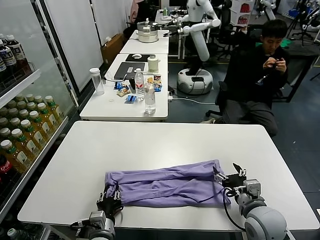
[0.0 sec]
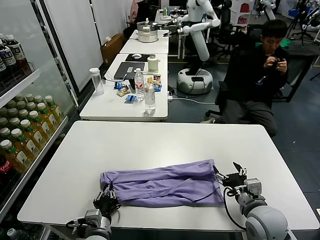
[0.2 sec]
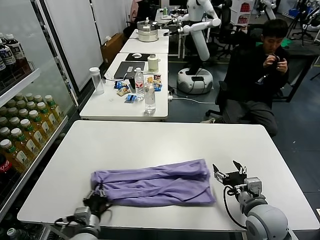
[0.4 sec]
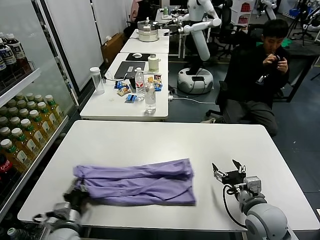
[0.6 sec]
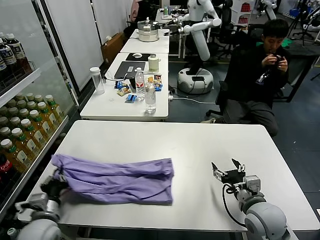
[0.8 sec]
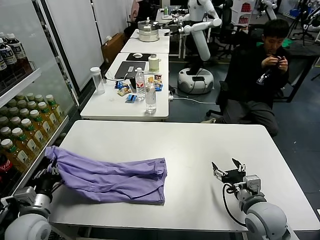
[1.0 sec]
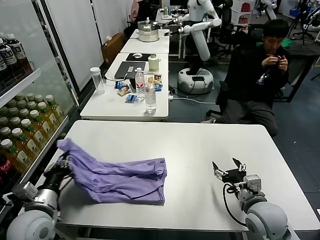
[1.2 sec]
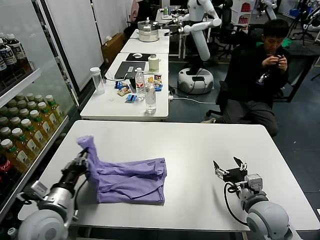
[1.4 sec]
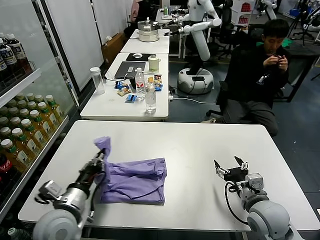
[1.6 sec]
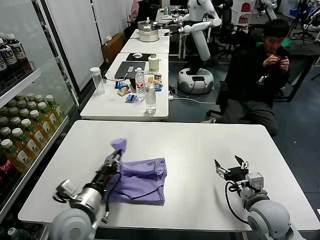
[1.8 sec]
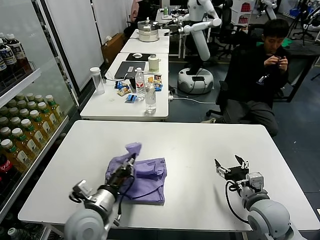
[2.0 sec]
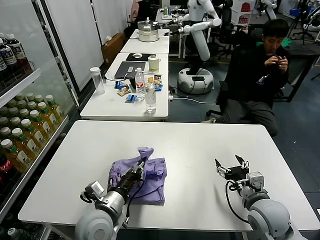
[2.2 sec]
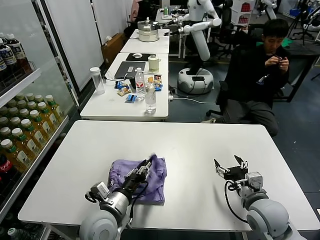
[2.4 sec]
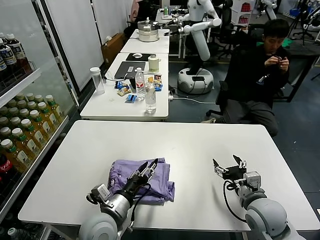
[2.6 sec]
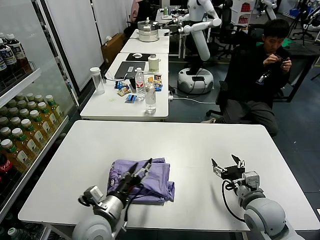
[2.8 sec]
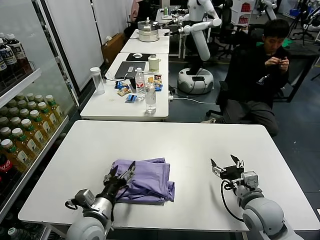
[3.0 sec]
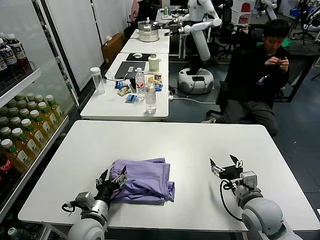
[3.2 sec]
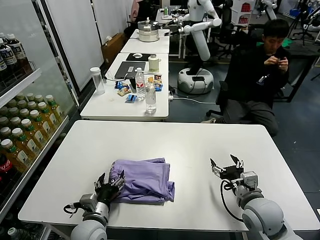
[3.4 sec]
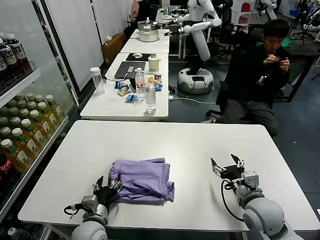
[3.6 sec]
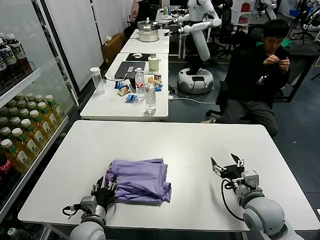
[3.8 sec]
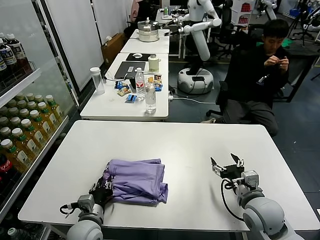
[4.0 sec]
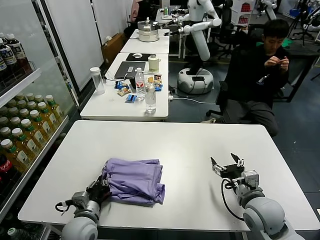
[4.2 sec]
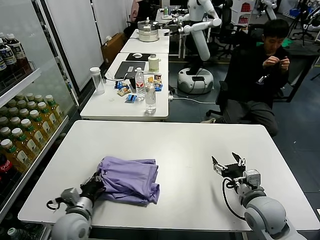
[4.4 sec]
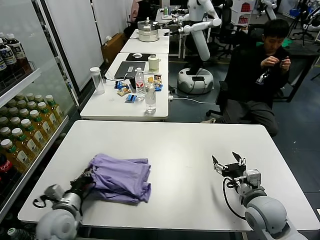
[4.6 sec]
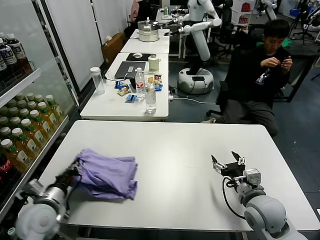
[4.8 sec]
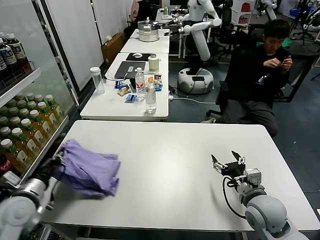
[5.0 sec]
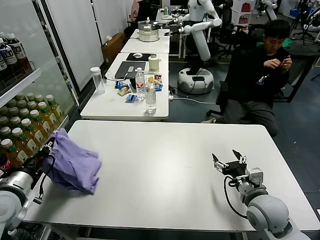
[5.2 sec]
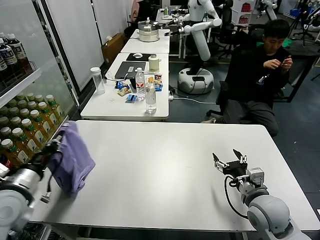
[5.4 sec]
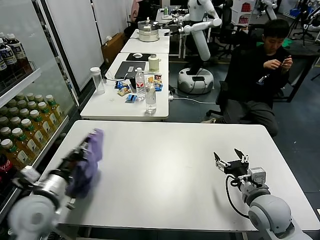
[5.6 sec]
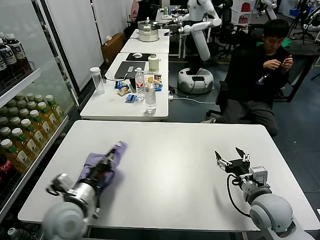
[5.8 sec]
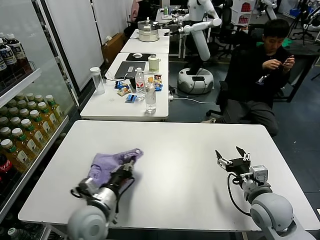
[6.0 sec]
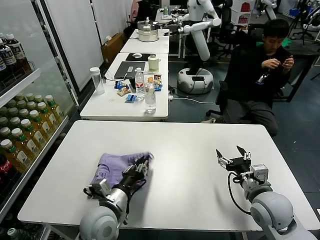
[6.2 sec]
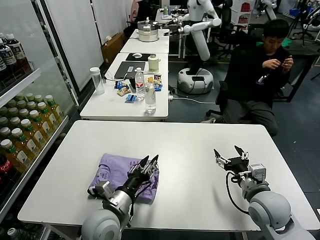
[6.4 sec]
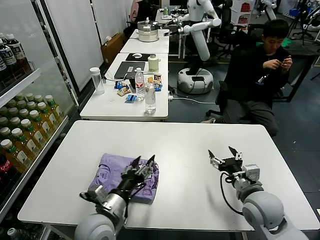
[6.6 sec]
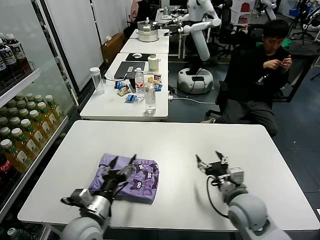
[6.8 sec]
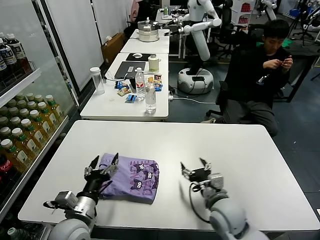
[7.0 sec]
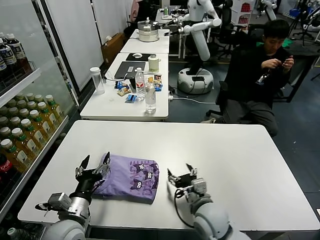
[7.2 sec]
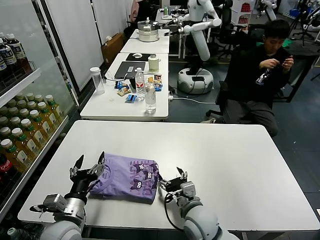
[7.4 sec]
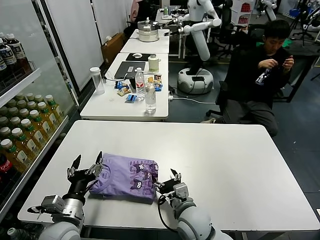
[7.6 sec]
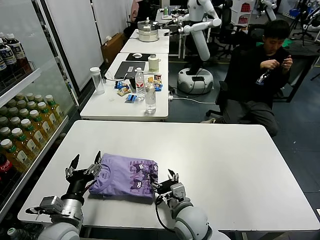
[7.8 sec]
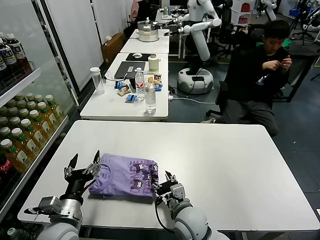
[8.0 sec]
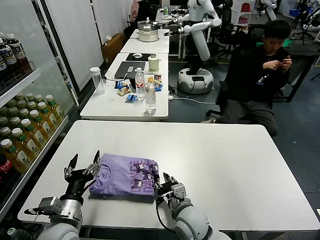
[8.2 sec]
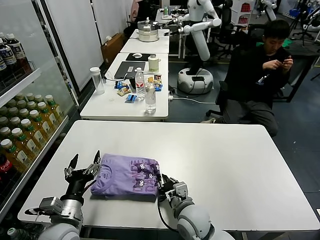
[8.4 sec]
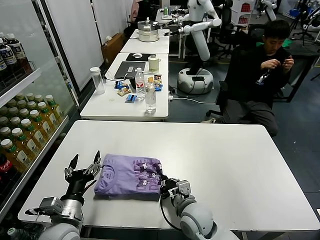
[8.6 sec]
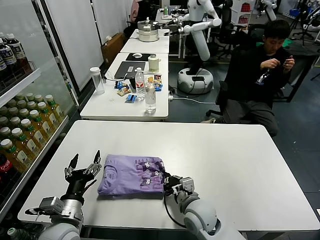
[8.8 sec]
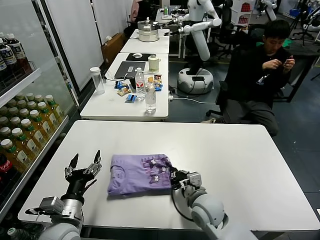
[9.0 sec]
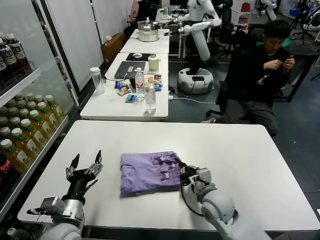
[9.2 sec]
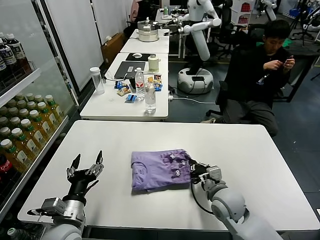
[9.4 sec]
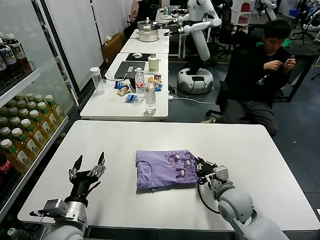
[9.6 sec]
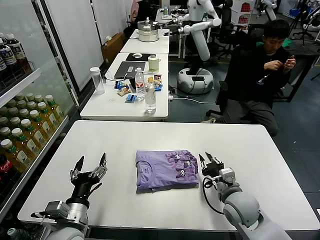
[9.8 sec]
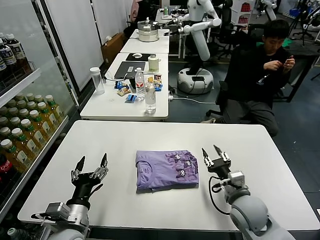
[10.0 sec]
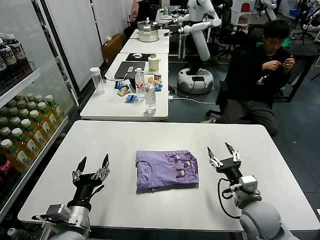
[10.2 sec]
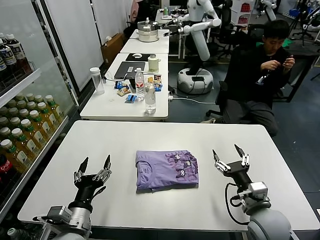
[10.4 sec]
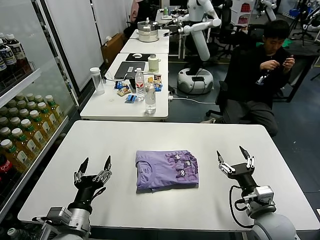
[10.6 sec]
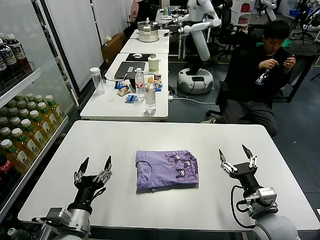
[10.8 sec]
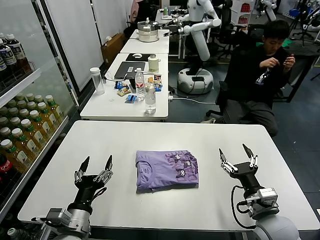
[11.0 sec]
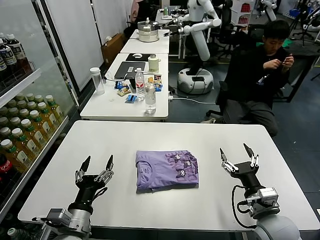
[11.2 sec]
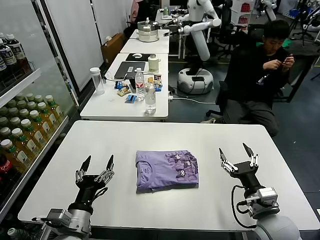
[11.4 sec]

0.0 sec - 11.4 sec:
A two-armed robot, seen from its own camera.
Task of the whole recording: fold and organize the clothes.
Step, 0.4 sec - 2.6 sec: use the left gripper to drag the left edge of the fabric to the left and folds it over the right edge.
Step, 3.0 sec - 6.6 sec: Flip the folded clothes over with left gripper.
Step, 6.8 sec - 10.0 sec: Drag the clothes to the center of the table.
0.0 sec - 1.4 sec: The left gripper goes roughly 20 cm upward and to the left, and closes its fingers.
1.4 sec - 2.8 sec: The left gripper is displaced to the right by approximately 15 cm, and opens its fingers.
2.8 sec - 4.2 sec: The left gripper goes about 10 cm downward and to the left, and closes.
4.2 sec - 5.6 sec: The left gripper heads upward and to the left, covering approximately 20 cm.
5.6 sec - 7.2 sec: The left gripper heads downward and to the right, covering about 10 cm, and opens its fingers; the right gripper moves to the left and downward, approximately 15 cm.
7.2 sec - 8.6 sec: The right gripper moves approximately 5 cm, and closes up.
8.6 sec - 10.0 sec: The right gripper travels to the right by roughly 15 cm, and opens its fingers.
10.0 sec - 11.4 sec: The right gripper shifts approximately 5 cm backward, and opens its fingers.
